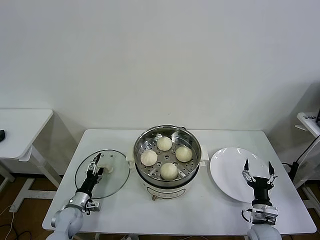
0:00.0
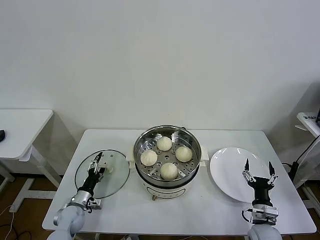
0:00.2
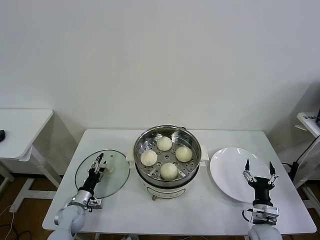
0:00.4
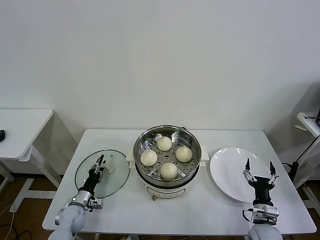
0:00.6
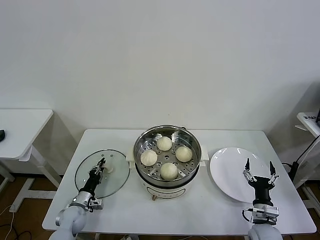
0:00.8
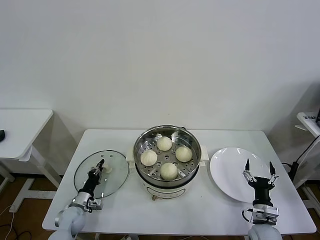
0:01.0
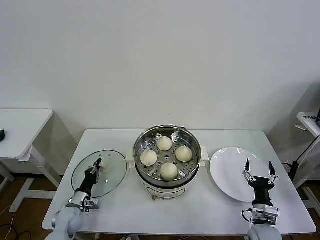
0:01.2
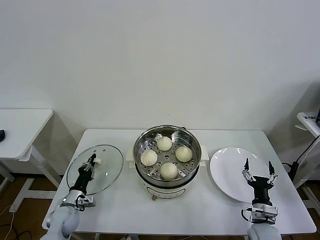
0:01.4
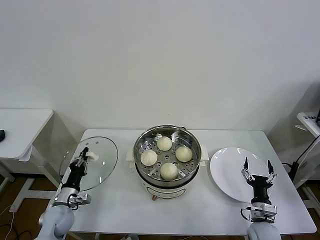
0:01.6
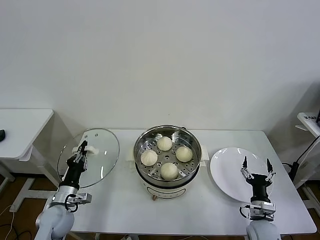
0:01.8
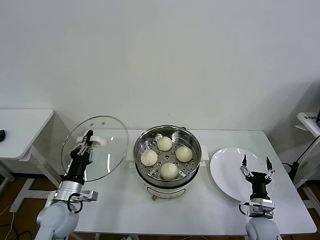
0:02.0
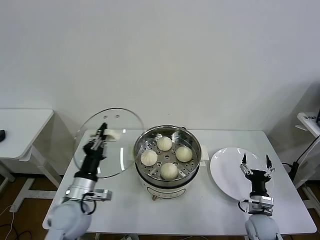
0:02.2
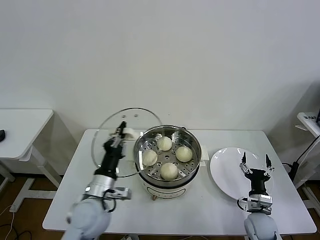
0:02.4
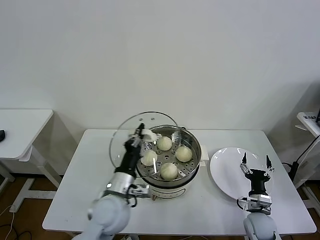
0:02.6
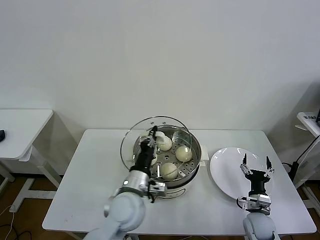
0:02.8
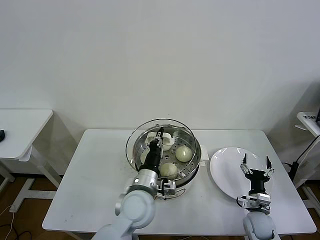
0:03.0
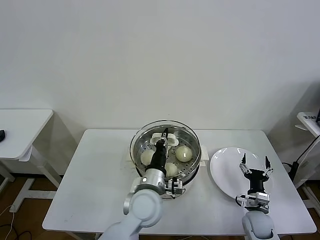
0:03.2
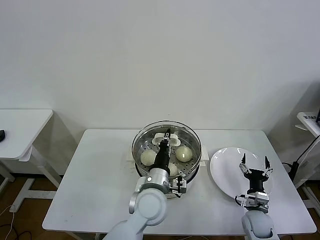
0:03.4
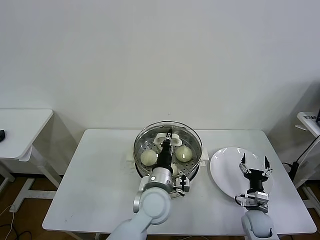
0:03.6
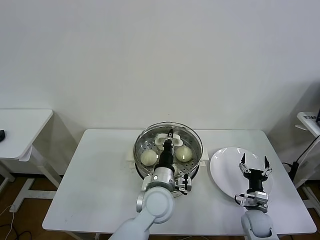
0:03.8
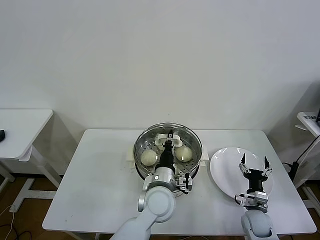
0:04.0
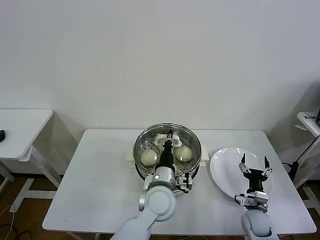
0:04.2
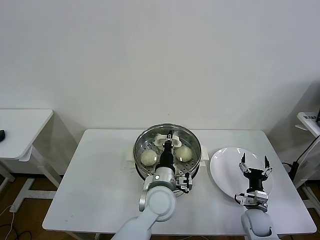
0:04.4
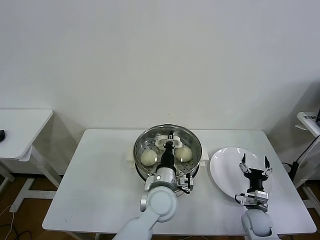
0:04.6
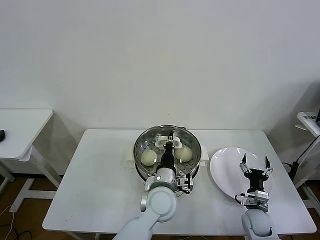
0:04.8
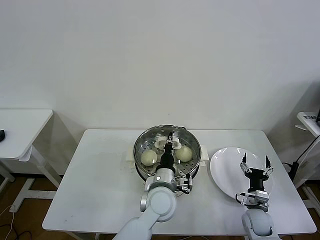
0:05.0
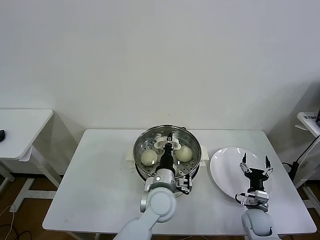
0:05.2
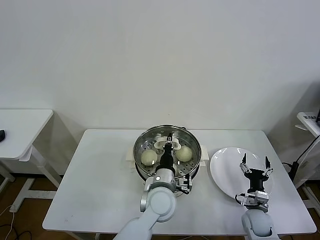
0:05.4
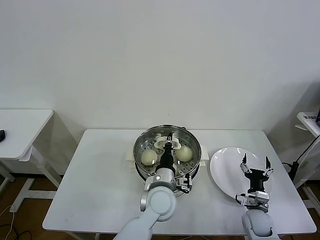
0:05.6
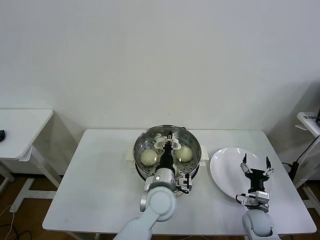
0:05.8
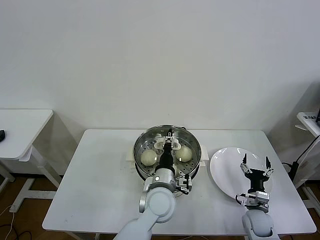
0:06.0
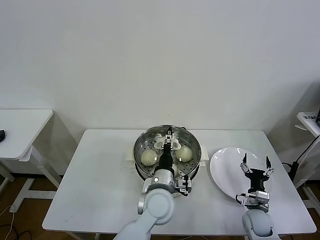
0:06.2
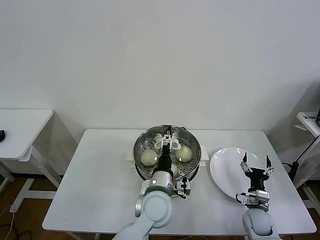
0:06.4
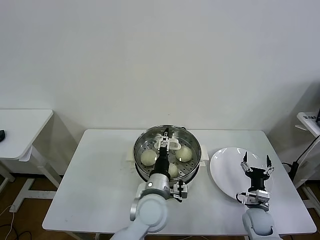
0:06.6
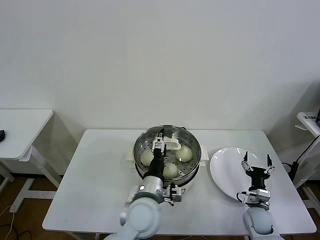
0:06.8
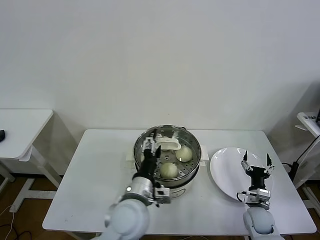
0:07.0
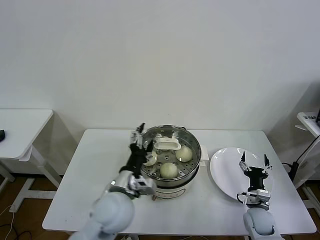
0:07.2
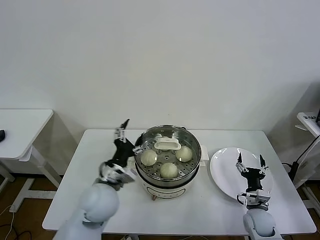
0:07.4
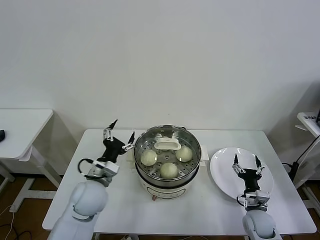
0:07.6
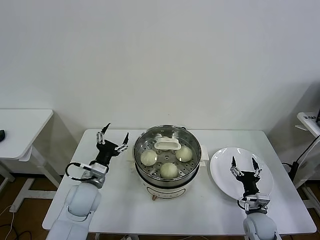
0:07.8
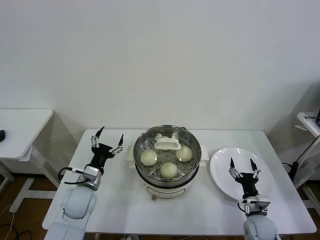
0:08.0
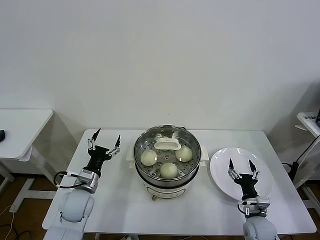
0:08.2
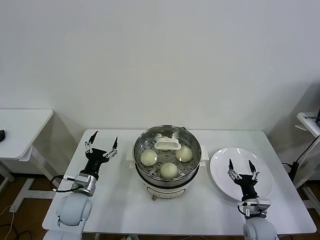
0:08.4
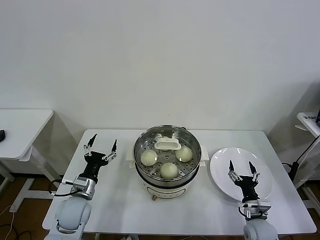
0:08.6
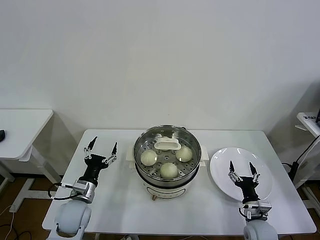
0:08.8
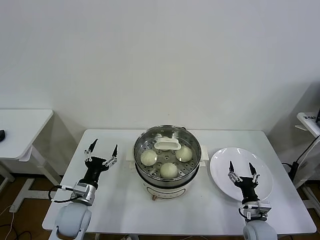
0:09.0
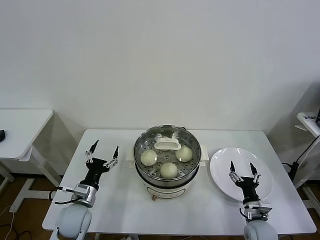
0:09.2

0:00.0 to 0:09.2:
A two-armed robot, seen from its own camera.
Task of the whole recording: take steamed baozi put them in steamer then cover it.
Step, 0:01.2 to 0:05.8: Place the pot lid on the steamer with left gripper.
0:00.0 to 0:01.6: The left gripper closes its fingers.
0:01.6 to 0:03.0: The left gripper shifts roughly 35 cm to the right and upward.
0:03.0 to 0:04.6: The left gripper travels to the right by approximately 5 cm.
0:04.6 to 0:06.2: The left gripper opens up.
0:06.2 to 0:07.6: The left gripper shifts roughly 20 cm to the left, and opens its fingers.
0:07.6 to 0:09.2: The left gripper travels downward and to the left by approximately 15 cm.
